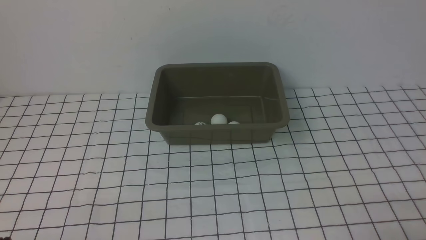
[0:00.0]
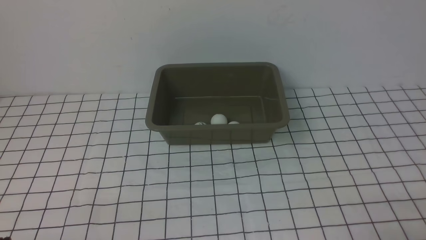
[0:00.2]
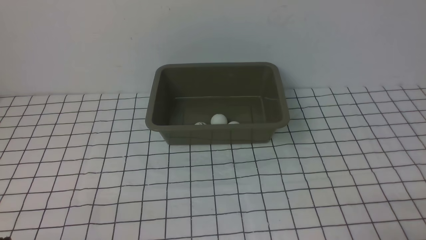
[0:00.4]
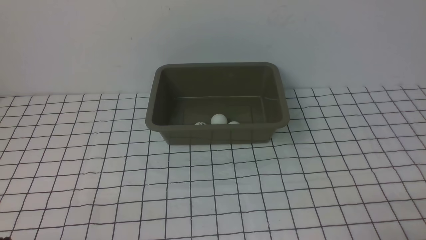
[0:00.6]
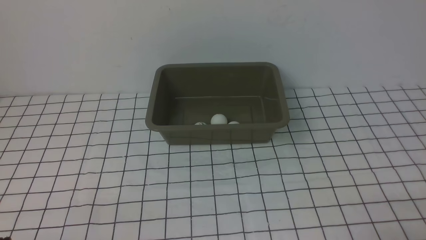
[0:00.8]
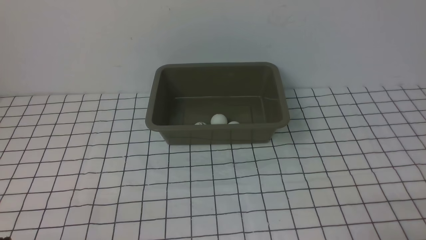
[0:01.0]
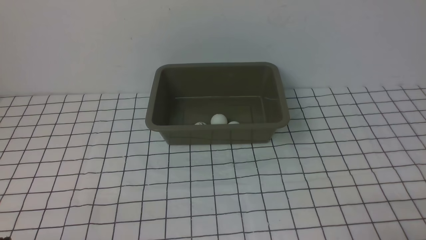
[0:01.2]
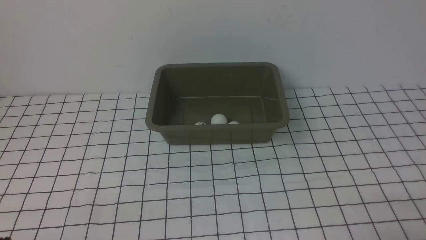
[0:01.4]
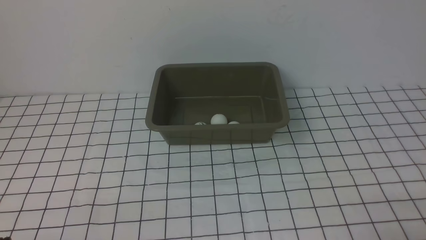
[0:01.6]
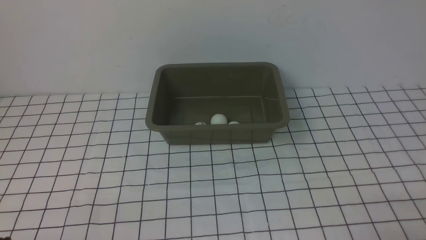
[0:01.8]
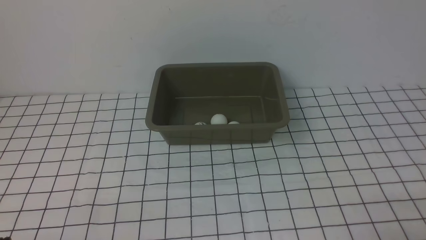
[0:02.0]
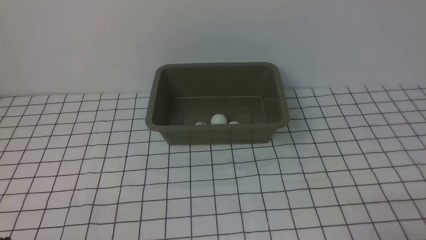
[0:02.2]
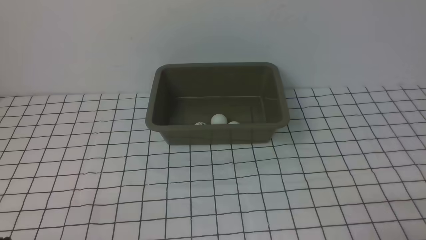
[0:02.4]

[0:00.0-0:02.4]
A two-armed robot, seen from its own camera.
0:00.0 to 0:02.4: Neither gripper changes place.

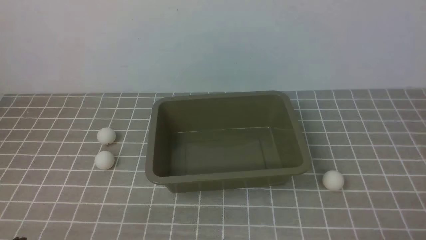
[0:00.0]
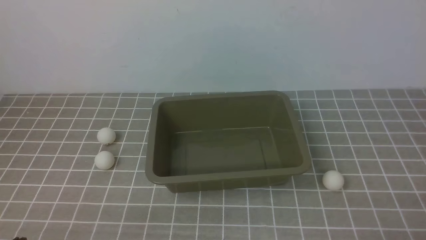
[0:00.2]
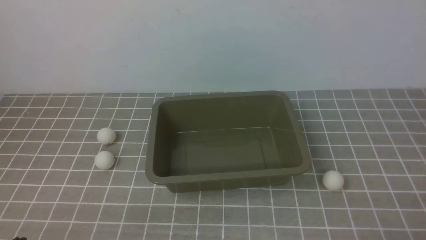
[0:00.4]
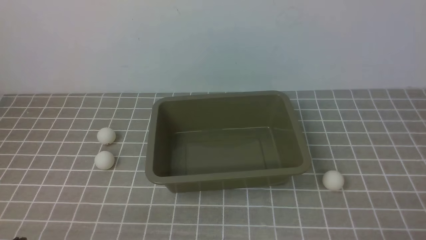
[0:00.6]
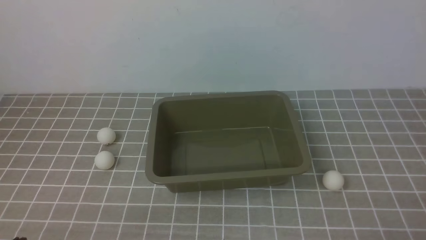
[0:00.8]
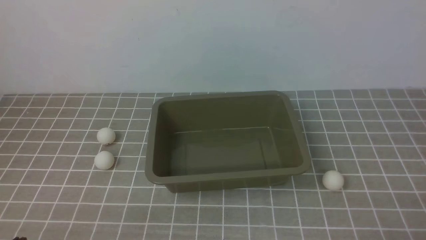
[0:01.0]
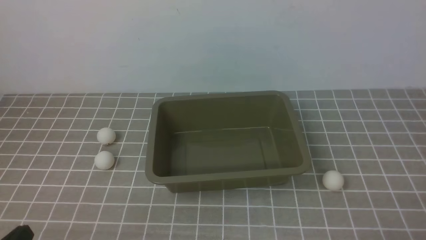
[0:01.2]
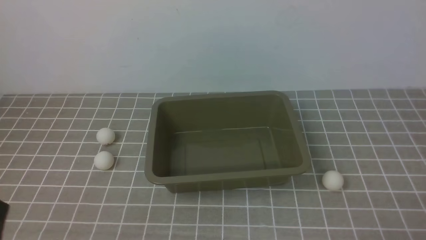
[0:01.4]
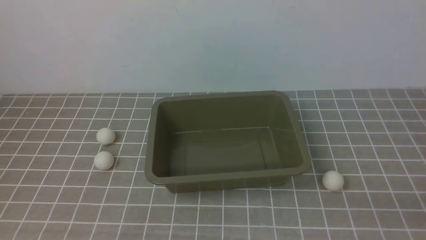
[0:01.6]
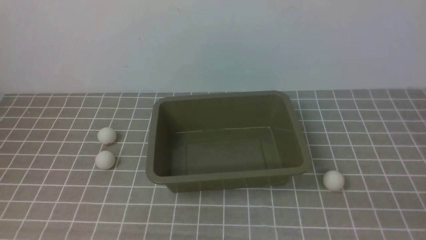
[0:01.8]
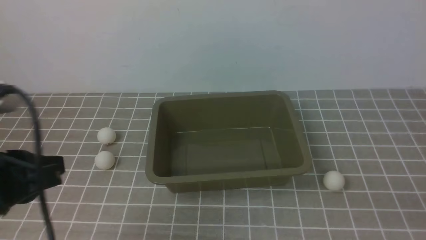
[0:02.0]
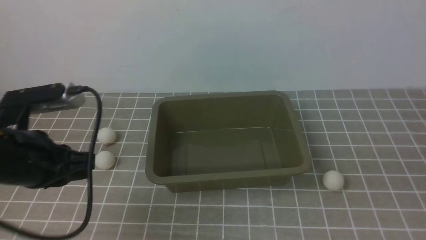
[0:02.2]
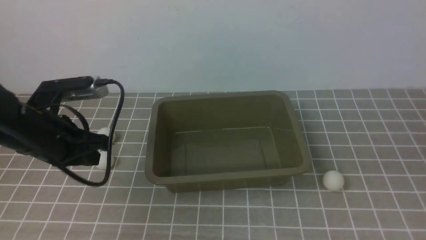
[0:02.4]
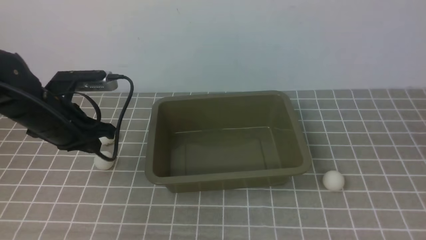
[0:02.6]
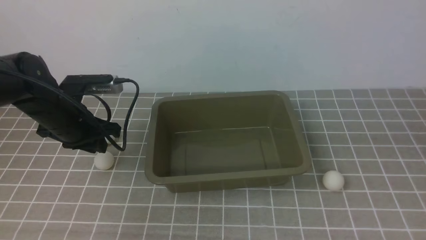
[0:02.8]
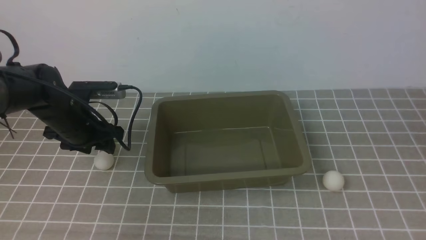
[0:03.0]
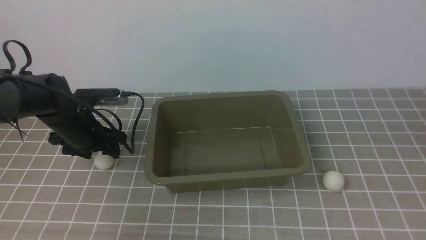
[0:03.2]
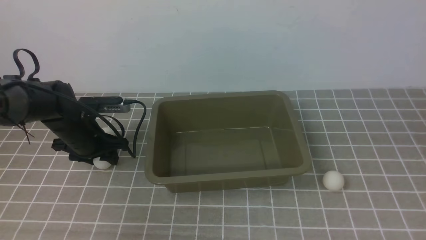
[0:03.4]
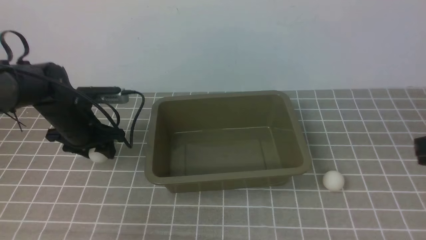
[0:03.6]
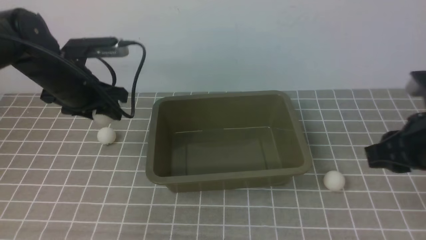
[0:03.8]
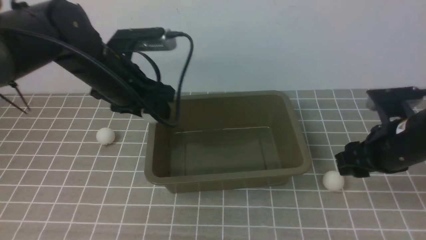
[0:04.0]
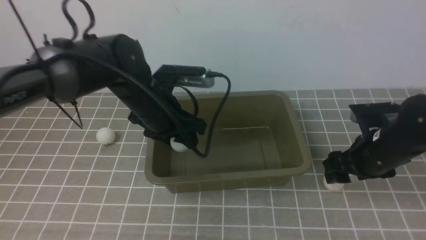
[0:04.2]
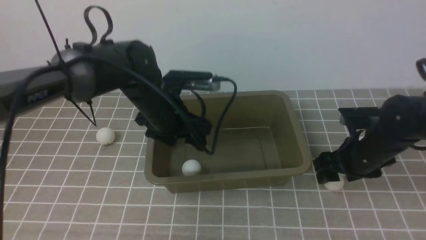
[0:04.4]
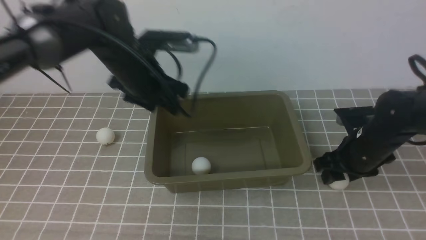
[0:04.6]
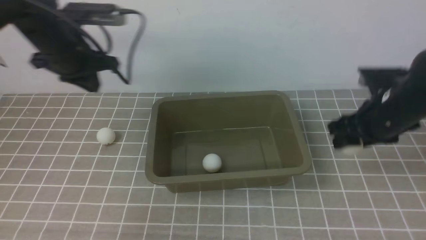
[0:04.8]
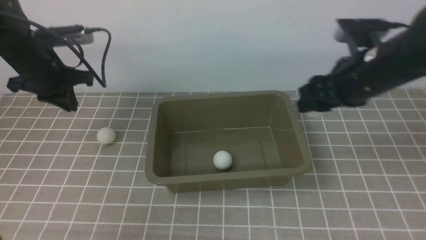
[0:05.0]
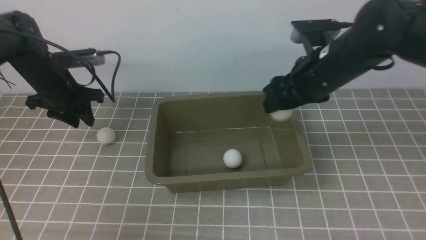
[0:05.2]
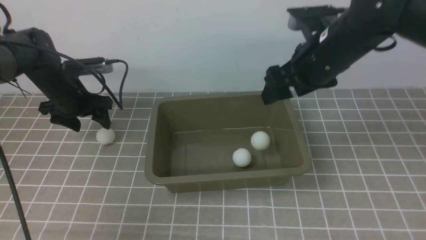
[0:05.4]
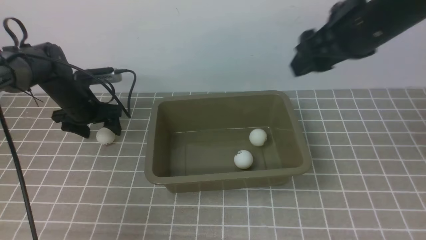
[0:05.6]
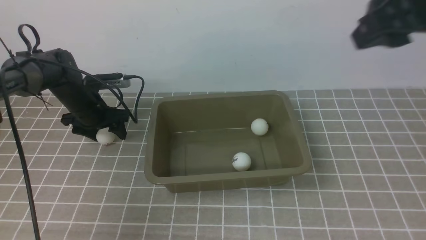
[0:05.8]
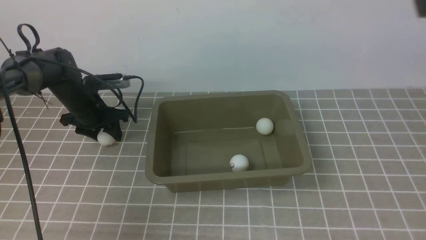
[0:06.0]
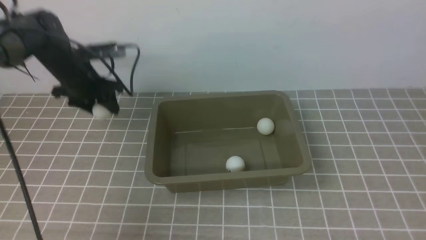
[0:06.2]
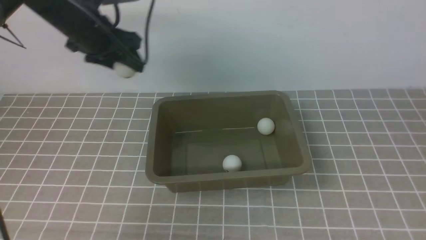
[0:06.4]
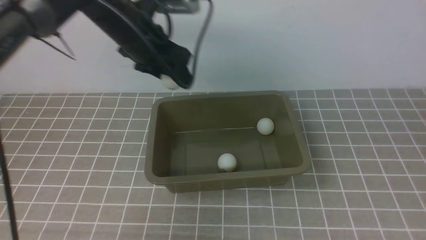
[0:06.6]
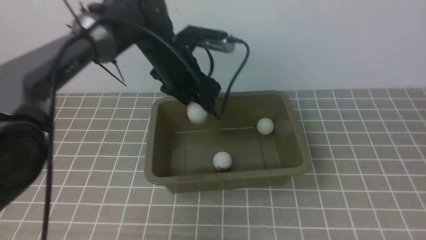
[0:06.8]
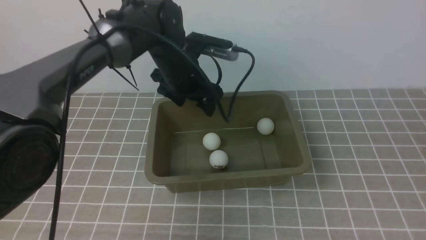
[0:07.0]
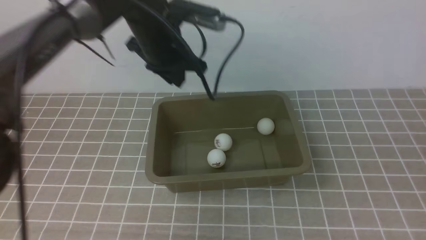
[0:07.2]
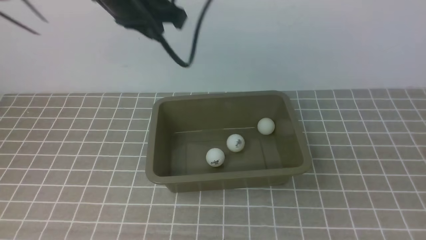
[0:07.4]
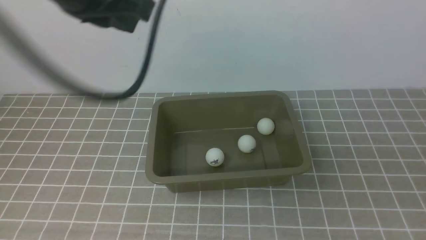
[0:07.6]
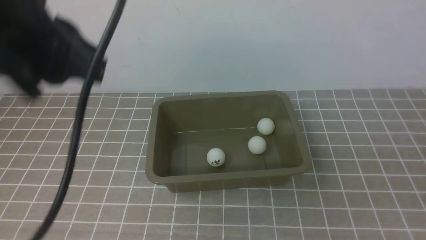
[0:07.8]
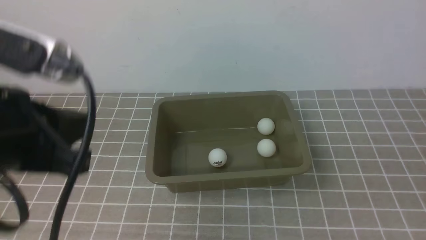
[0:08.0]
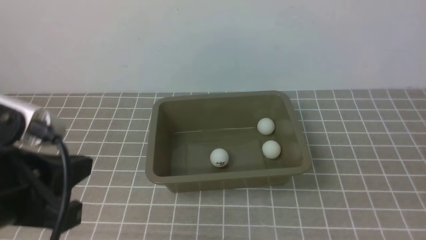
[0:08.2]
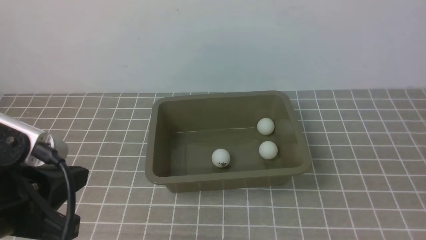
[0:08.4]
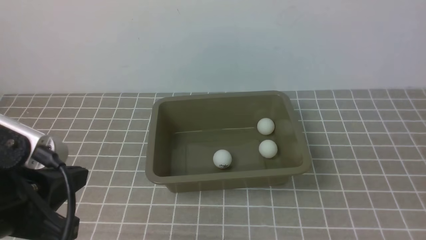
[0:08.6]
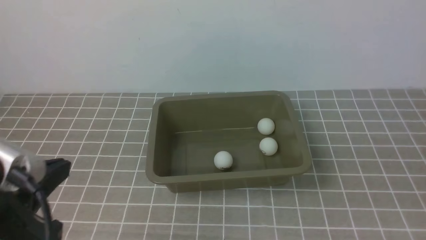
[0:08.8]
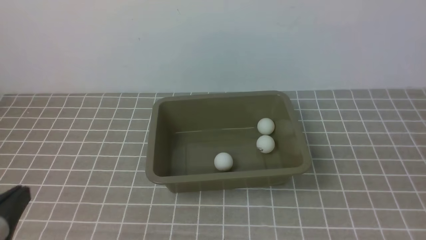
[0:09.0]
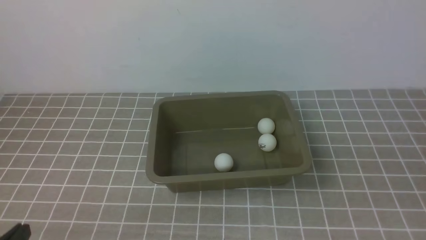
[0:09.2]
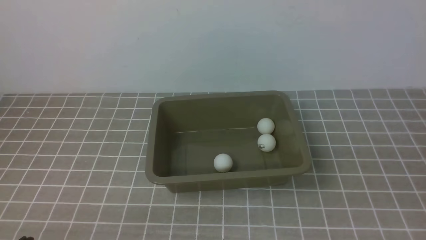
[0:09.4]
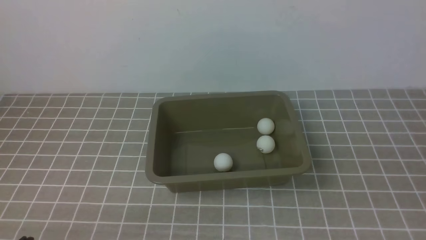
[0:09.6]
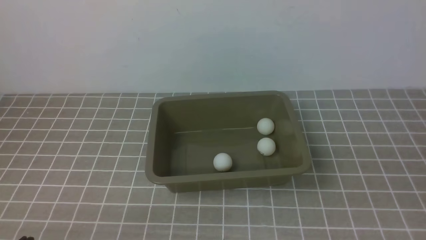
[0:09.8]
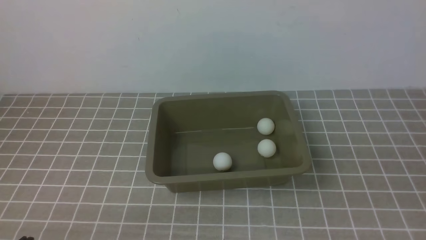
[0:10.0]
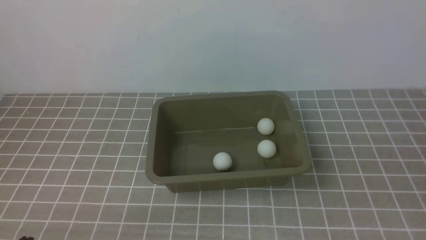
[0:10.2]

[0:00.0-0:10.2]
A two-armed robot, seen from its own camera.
Step, 0:00.0 to 0:03.6: use the left arm to clamp the table tennis ball closest to it.
Step, 0:03.8 to 0:04.4: use the left arm to put the table tennis ball into the box.
Step, 0:04.6 to 0:04.8: use the right arm to clamp the table tennis ball closest to it.
Step, 0:05.0 to 0:05.4: use the right arm to put the table tennis ball into the box.
Step, 0:05.6 to 0:06.2: use the left arm to clamp the table tennis ball closest to it.
Step, 0:06.4 to 0:06.8: use the left arm to put the table tennis ball into the box.
0:01.4 to 0:03.0: The right gripper shifts some 20 cm upward and forward; the left gripper moves forward, approximately 30 cm, and opens up.
0:03.0 to 0:04.4: The left gripper moves to the right, roughly 15 cm. Meanwhile the right gripper shifts approximately 25 cm downward and forward, and opens up.
0:04.4 to 0:05.8: The right gripper is displaced upward by roughly 25 cm; the left gripper shifts about 20 cm to the left, forward and downward, and closes, then opens again.
0:05.8 to 0:07.2: The right gripper shifts approximately 25 cm backward, downward and to the right, and closes its fingers, while the left gripper travels to the right and upward by some 25 cm, and closes its fingers.
0:07.2 to 0:08.8: The left gripper is displaced backward and to the left by about 35 cm, and closes up.
0:08.8 to 0:10.2: The left gripper moves downward, approximately 15 cm.

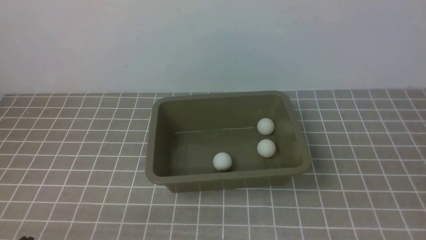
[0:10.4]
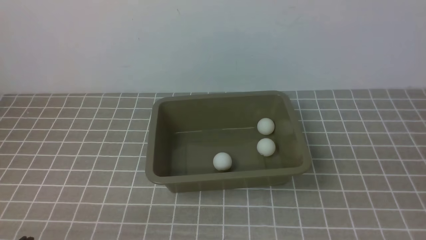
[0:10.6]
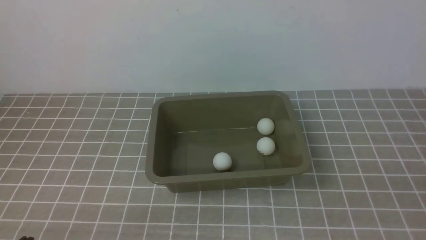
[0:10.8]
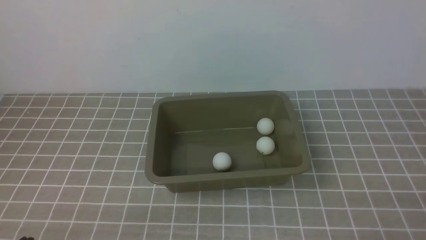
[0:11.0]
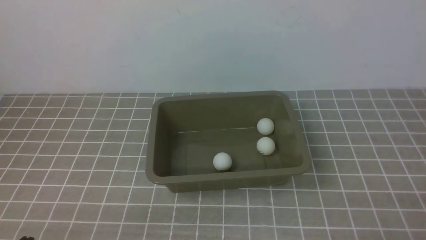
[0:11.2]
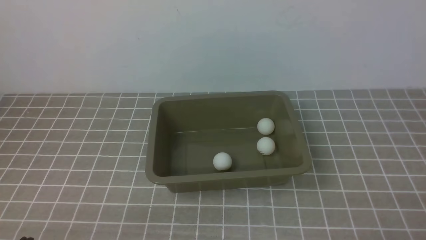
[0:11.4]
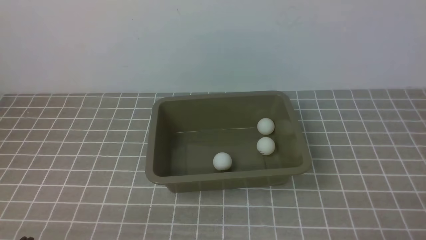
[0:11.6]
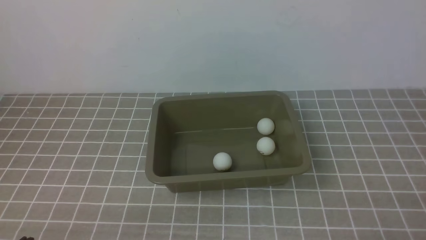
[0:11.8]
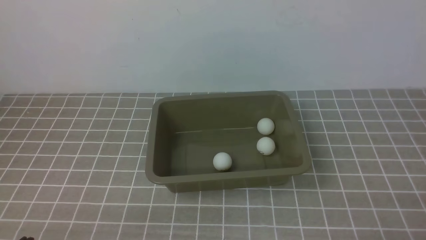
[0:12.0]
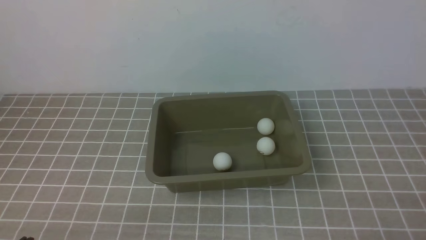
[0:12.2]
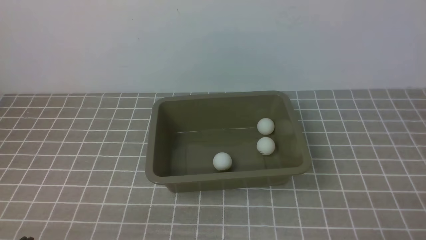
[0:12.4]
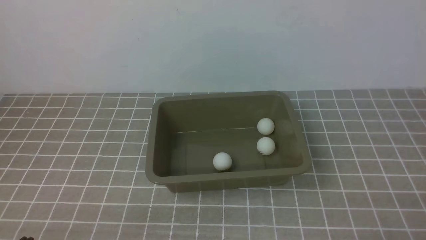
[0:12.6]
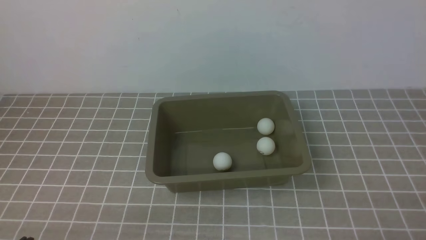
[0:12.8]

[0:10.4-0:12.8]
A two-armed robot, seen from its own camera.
0:11.6 to 0:12.8: Both grippers stay put.
